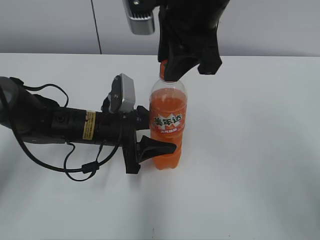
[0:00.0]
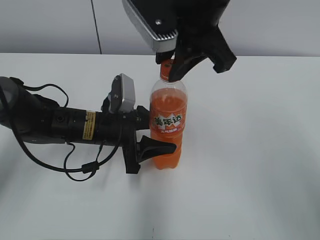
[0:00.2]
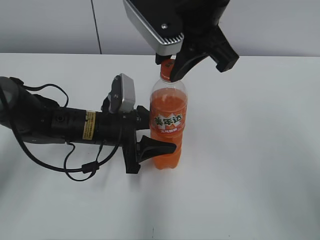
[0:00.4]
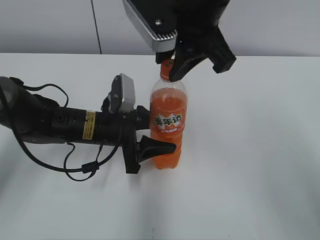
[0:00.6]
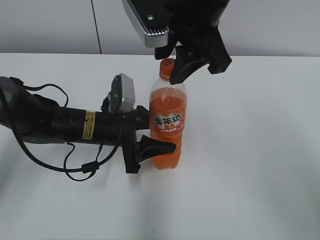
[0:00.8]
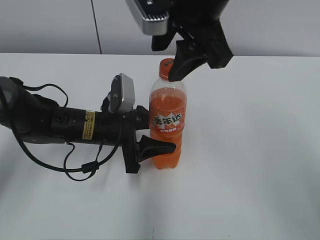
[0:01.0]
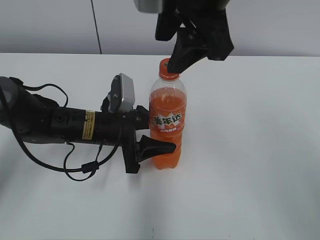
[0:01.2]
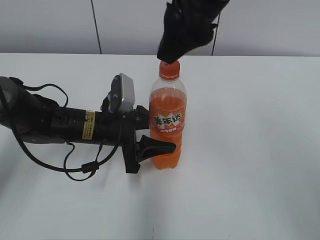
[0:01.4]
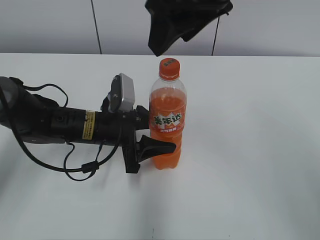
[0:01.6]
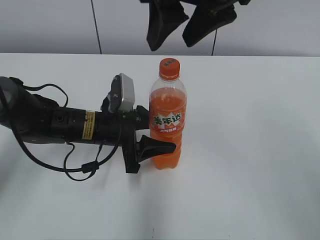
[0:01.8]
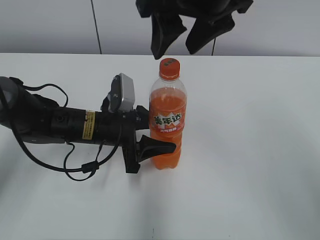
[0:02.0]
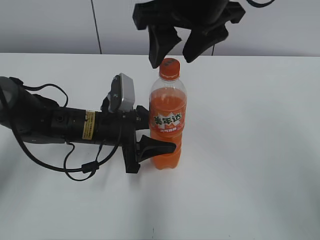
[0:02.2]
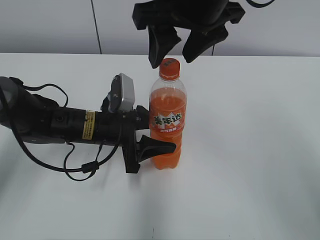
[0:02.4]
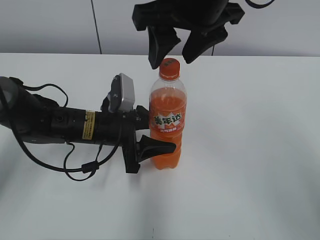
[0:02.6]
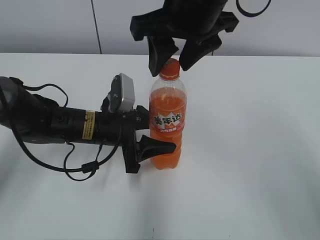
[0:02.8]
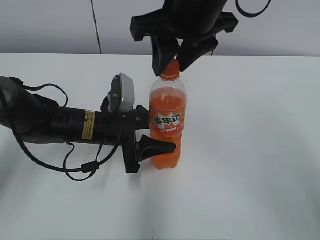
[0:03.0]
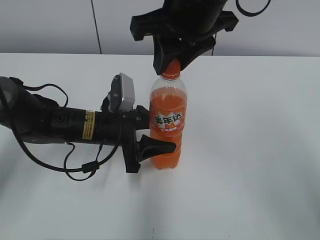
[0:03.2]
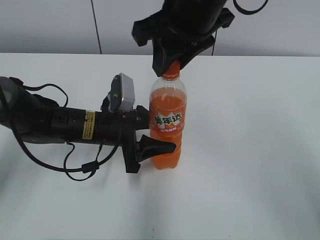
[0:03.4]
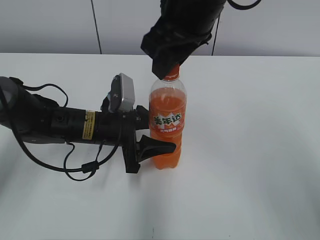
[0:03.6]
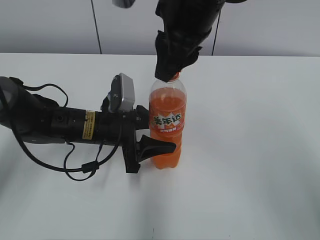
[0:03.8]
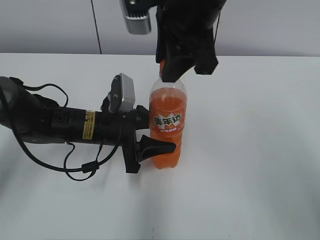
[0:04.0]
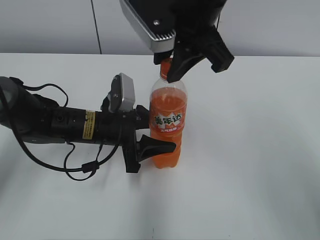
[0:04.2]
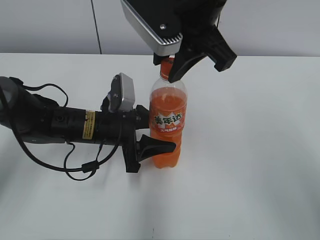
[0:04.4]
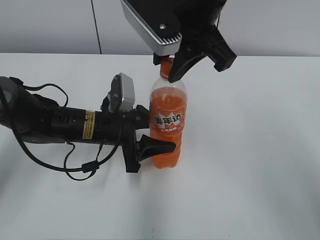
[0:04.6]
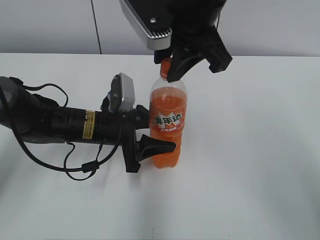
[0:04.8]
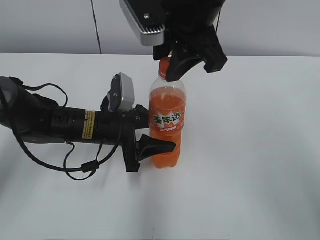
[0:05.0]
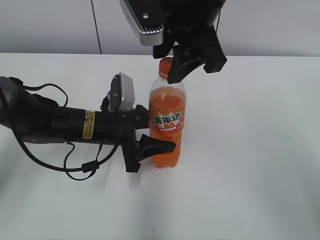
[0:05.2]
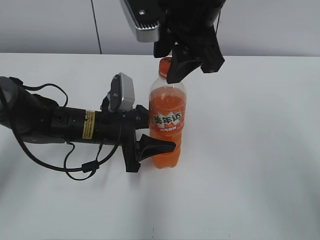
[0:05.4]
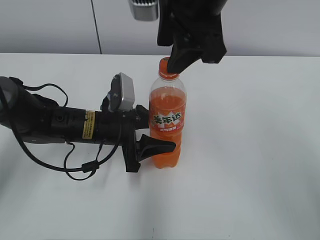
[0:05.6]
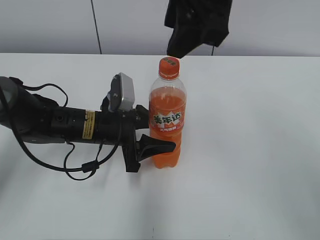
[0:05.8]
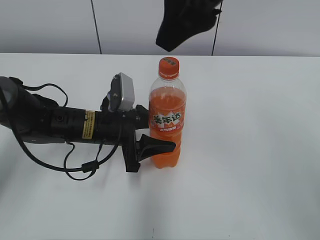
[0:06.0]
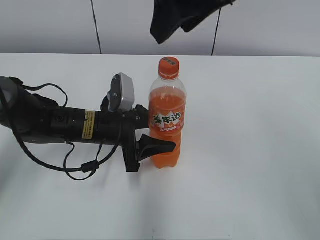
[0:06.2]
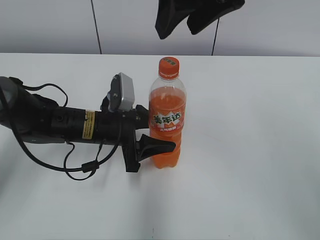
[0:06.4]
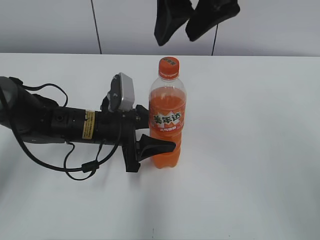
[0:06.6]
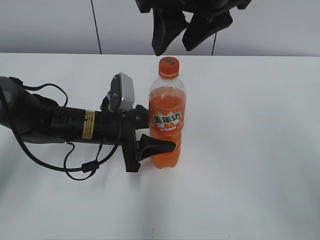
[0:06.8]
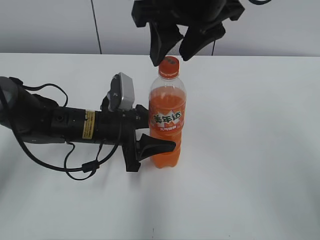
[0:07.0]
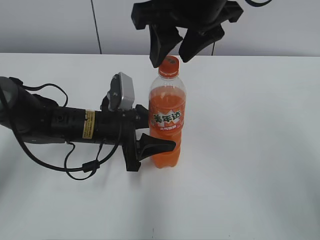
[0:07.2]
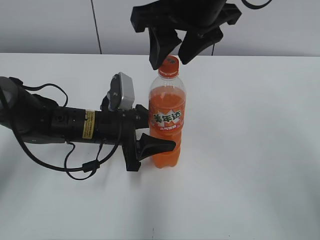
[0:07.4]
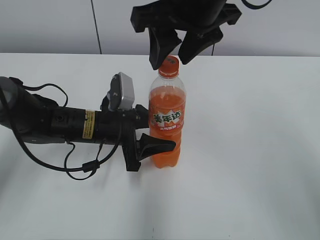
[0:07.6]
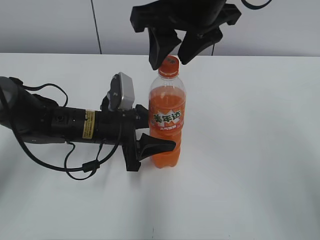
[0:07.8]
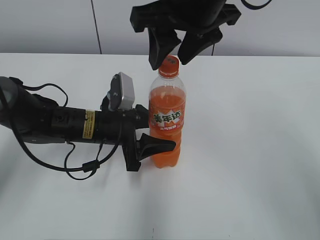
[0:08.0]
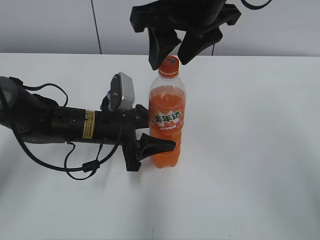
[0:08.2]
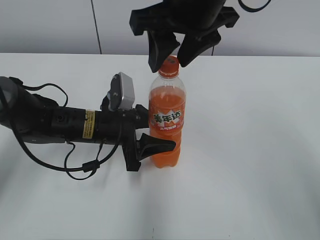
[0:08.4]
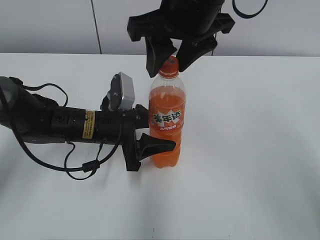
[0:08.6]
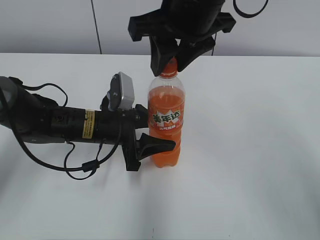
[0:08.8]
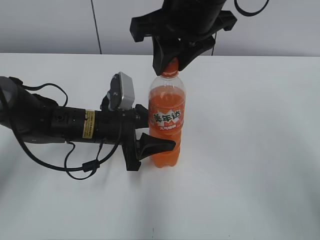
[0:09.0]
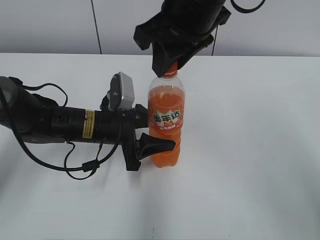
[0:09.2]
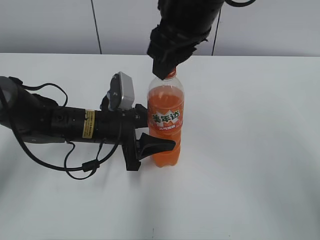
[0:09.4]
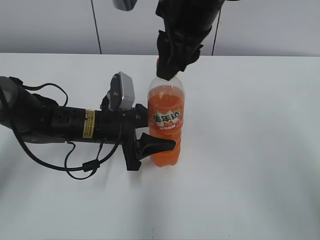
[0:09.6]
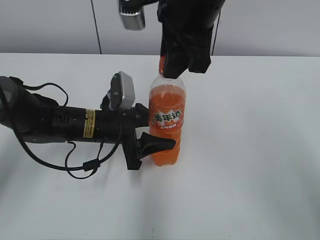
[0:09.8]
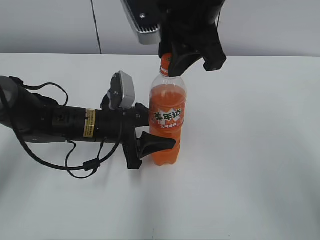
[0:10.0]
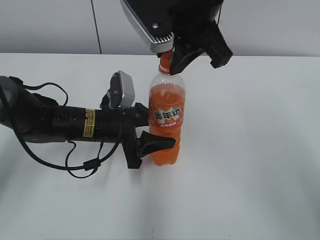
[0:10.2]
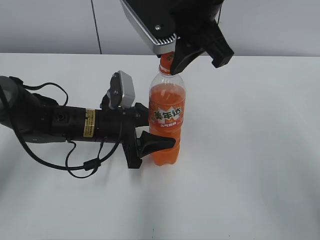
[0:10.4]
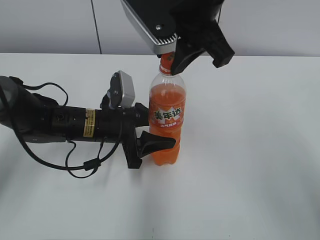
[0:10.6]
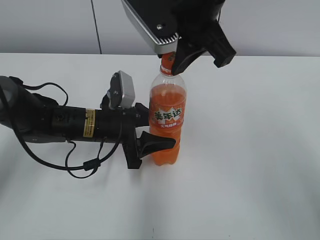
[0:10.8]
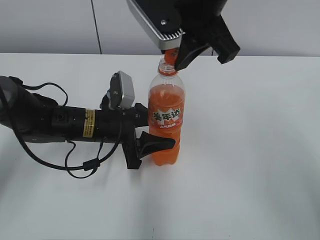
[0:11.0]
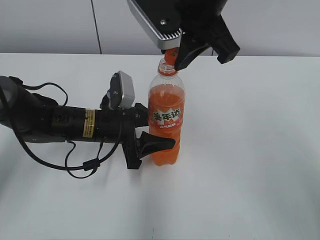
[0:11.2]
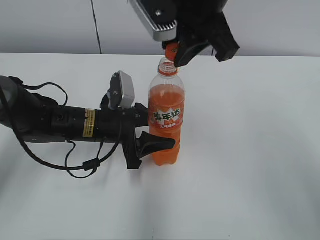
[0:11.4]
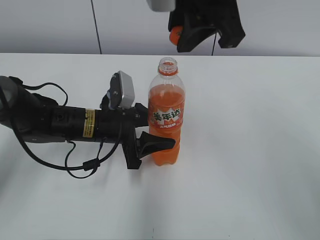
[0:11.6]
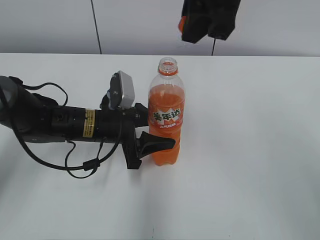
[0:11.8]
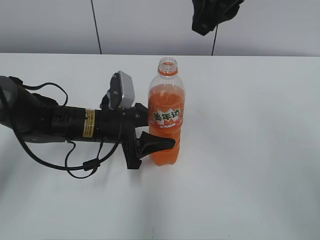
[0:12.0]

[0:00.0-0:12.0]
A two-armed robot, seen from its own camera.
0:00.0 to 0:01.6: The right gripper opens up.
0:01.6 to 0:03.0: The right gripper changes place by roughly 5 cm, and closes.
0:04.4 to 0:06.0: The right gripper is displaced upward by roughly 5 cm, and opens up.
0:06.0 to 0:07.6: The right gripper changes place by approximately 5 cm.
0:07.6 to 0:09.0: The right gripper closes its fingers.
0:10.4 to 0:12.0: The right gripper ends up some 5 cm from where it was.

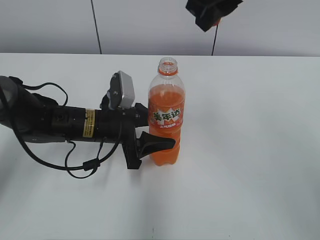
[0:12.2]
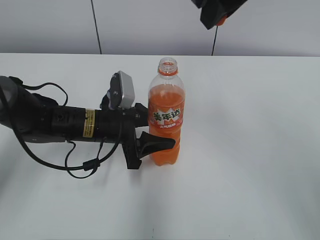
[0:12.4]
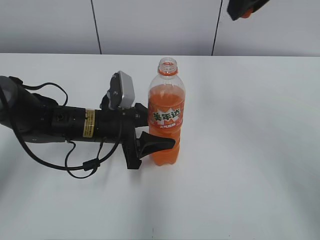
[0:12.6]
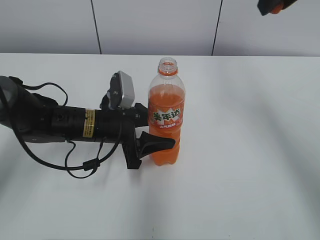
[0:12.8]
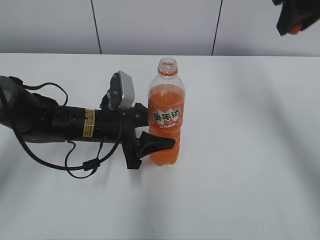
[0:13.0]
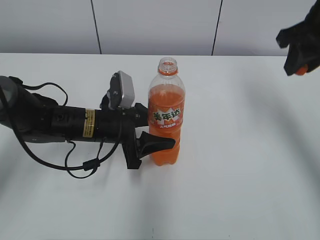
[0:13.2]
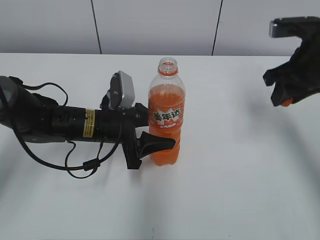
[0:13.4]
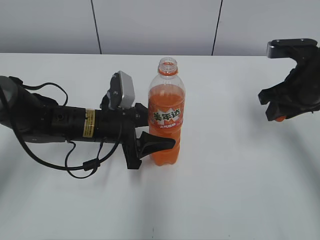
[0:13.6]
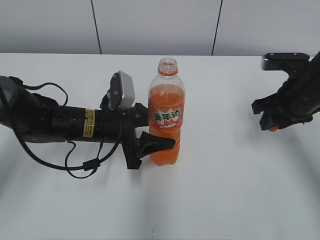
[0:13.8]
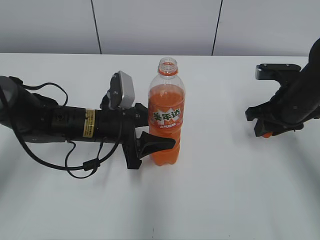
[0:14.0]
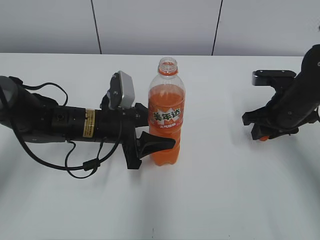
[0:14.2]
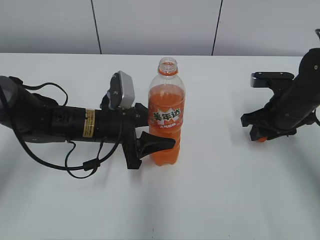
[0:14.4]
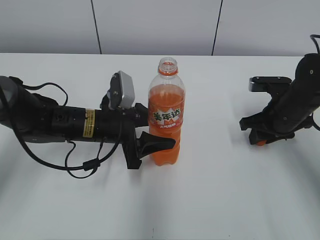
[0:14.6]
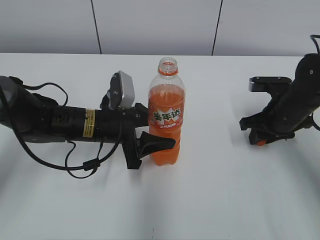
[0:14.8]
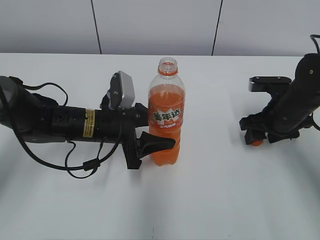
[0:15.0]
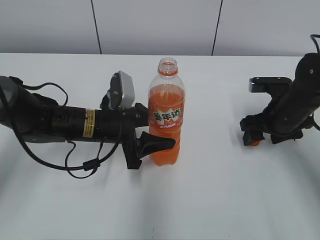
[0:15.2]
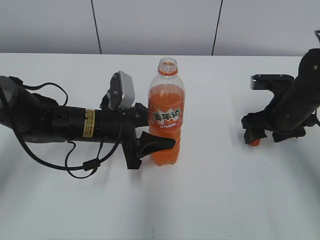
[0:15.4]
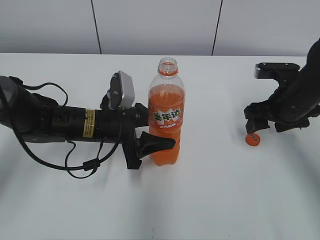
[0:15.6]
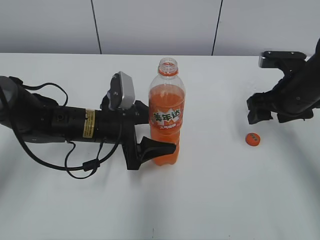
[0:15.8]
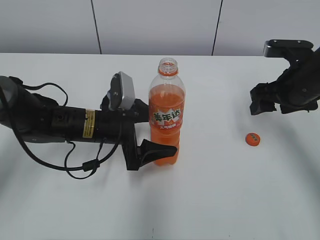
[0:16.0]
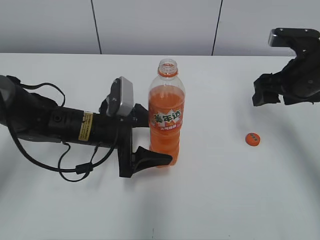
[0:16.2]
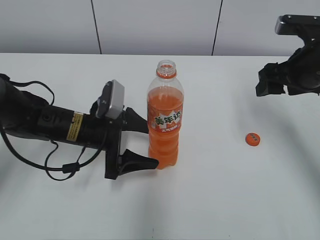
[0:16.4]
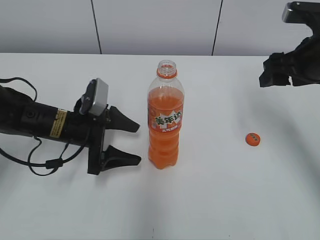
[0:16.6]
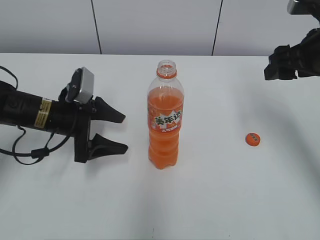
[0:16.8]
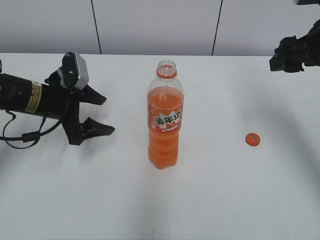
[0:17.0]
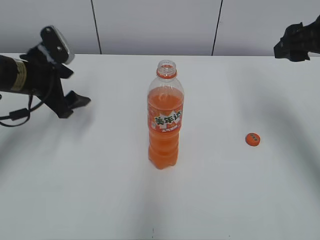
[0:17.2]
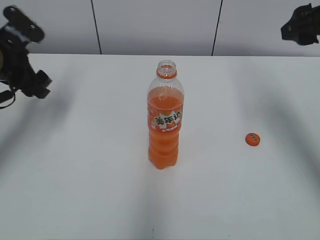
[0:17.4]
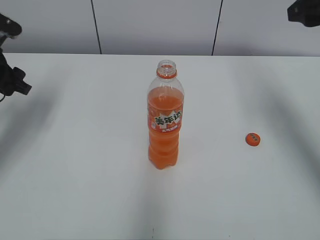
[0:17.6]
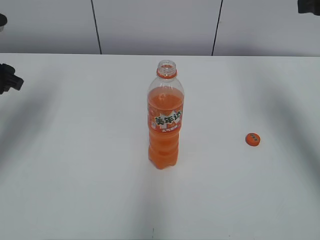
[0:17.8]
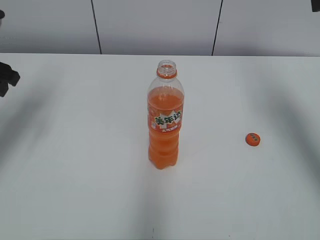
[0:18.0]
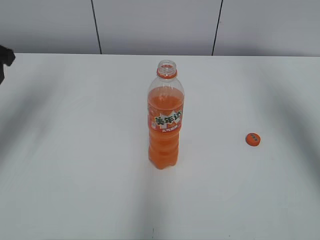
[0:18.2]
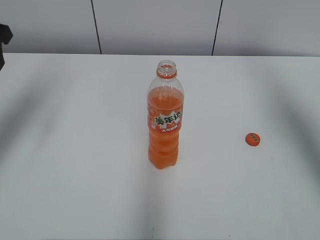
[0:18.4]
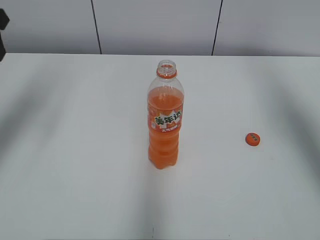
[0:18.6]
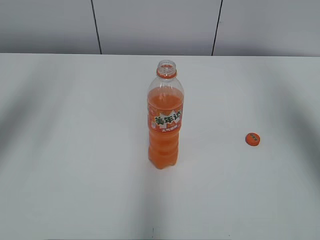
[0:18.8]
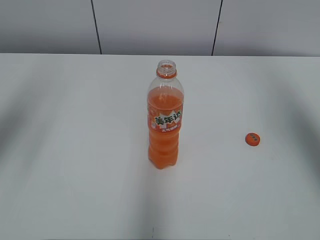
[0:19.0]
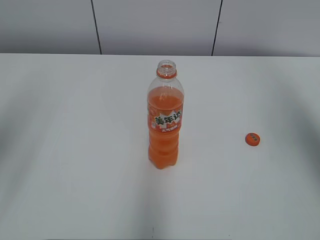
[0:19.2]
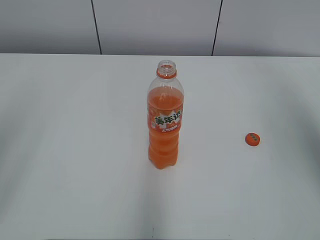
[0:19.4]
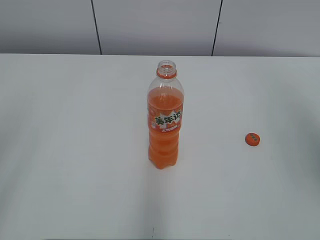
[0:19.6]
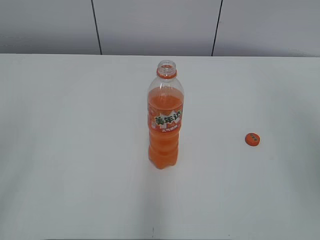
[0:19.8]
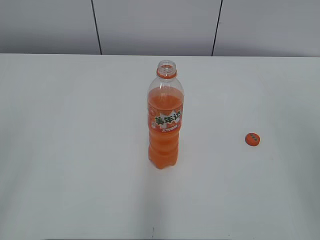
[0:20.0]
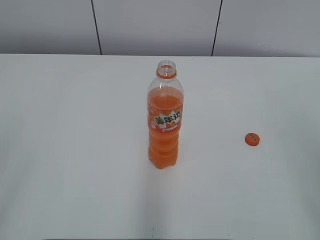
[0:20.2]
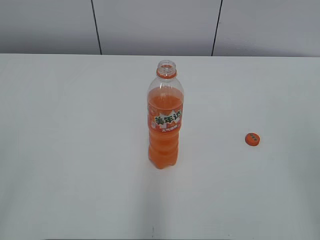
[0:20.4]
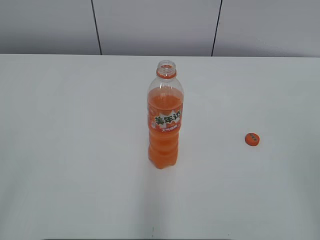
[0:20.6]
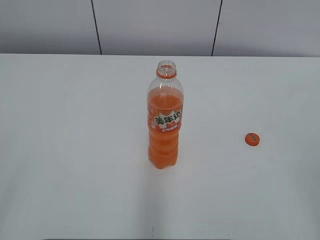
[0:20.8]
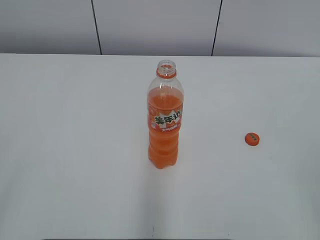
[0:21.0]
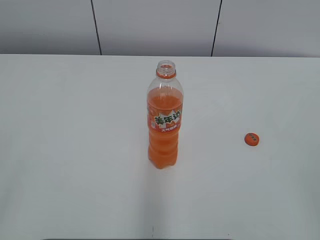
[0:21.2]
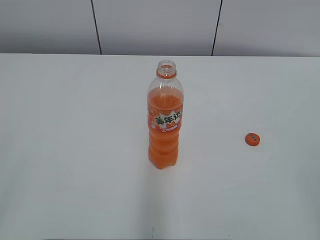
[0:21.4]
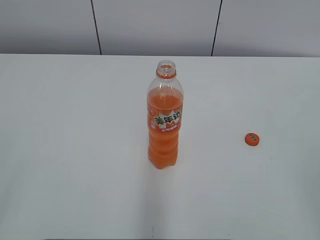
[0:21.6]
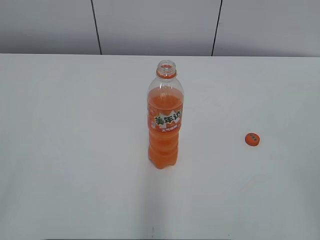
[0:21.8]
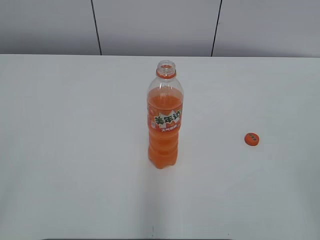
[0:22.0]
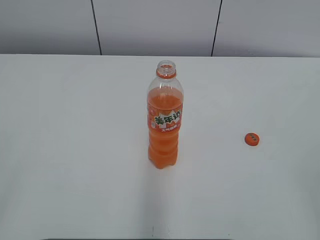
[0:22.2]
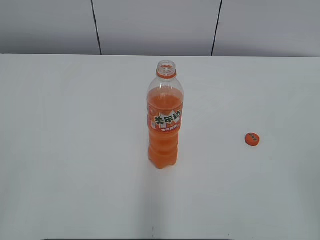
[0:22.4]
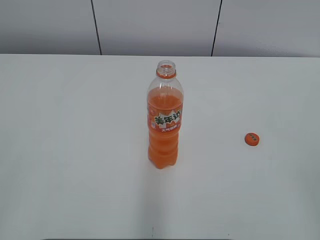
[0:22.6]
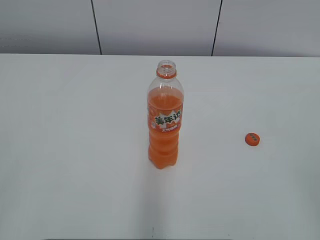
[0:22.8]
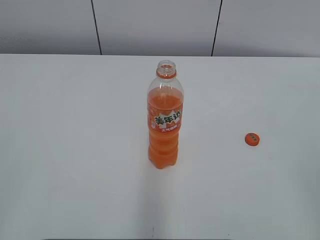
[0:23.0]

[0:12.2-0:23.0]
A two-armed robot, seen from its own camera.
Step, 0:12.2 to 0:15.0: Place the bottle cap on the right.
0:12.2 to 0:13.8: The right gripper moves downward and to the right, roughly 25 cm.
0:13.8 to 0:15.2: The right gripper shifts about 5 cm downward, and opens.
0:15.2 to 0:16.8: The right gripper is displaced upward by roughly 15 cm; the left gripper travels to the left by roughly 10 cm, and opens.
0:16.8 to 0:18.4: The right gripper goes some 15 cm upward. Meanwhile the left gripper shifts about 25 cm upward and to the left, and closes its fingers.
0:18.4 to 0:20.0: The grippers both shift backward by approximately 25 cm.
